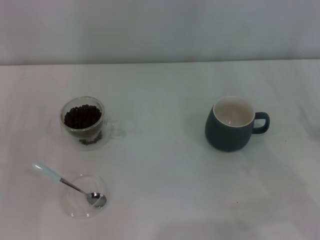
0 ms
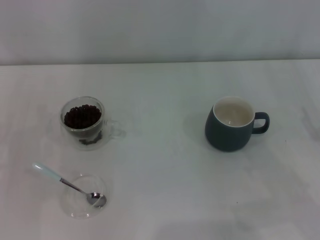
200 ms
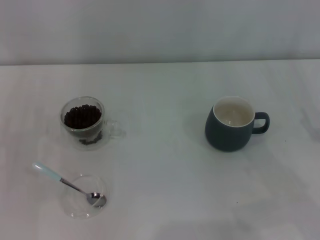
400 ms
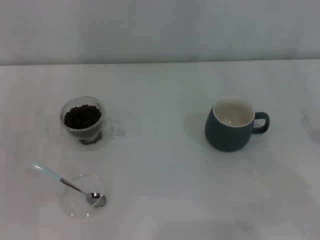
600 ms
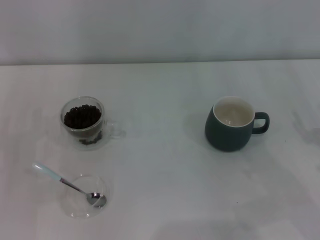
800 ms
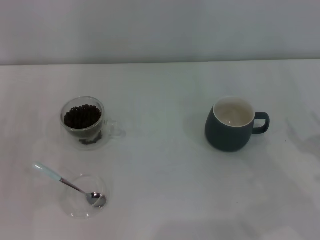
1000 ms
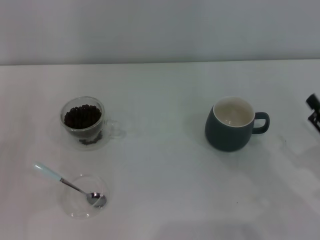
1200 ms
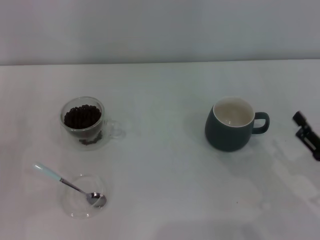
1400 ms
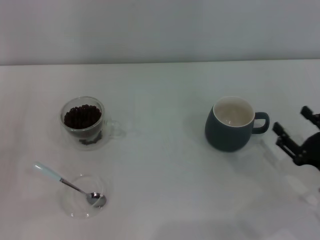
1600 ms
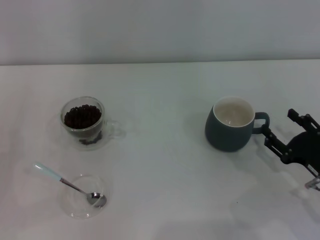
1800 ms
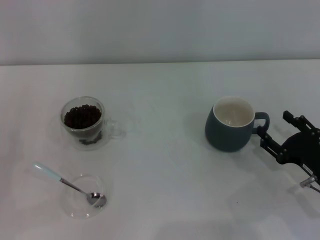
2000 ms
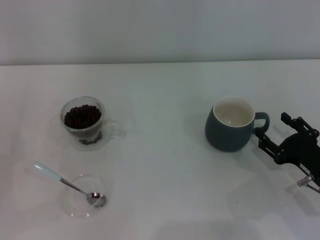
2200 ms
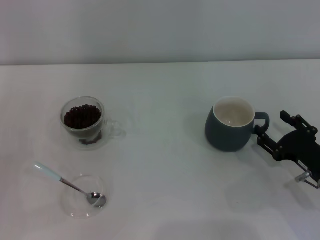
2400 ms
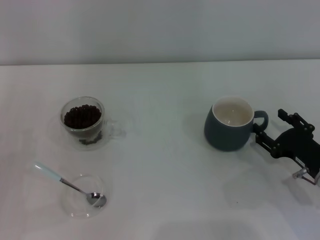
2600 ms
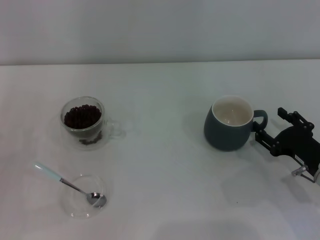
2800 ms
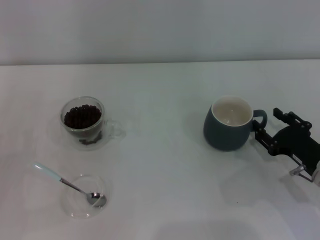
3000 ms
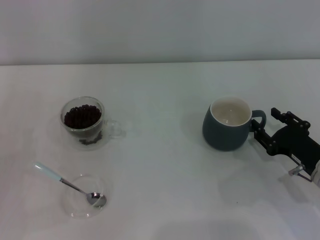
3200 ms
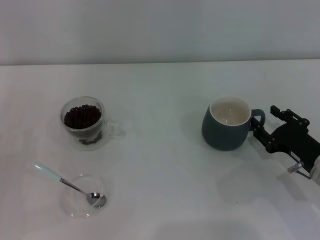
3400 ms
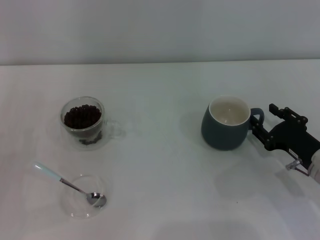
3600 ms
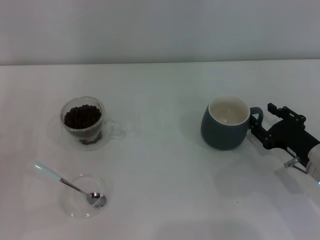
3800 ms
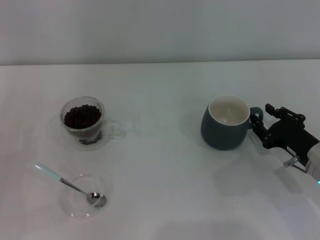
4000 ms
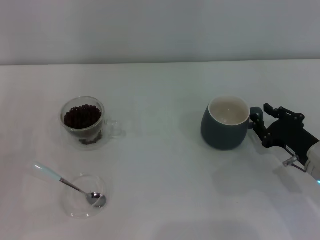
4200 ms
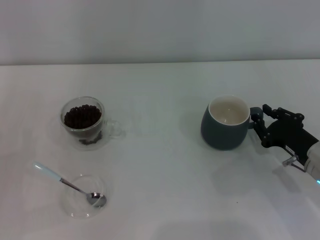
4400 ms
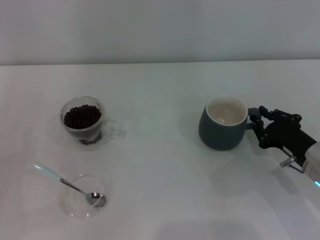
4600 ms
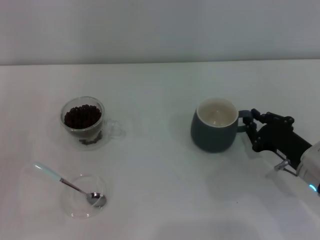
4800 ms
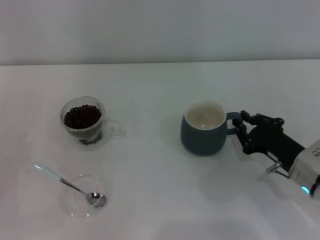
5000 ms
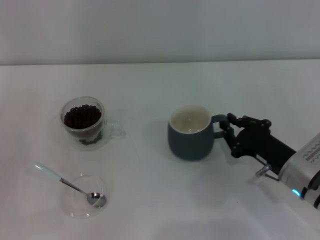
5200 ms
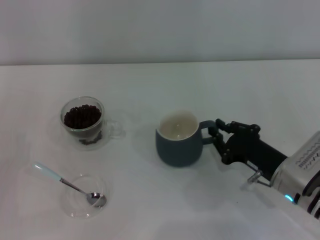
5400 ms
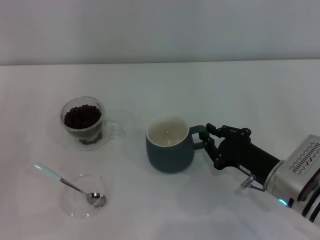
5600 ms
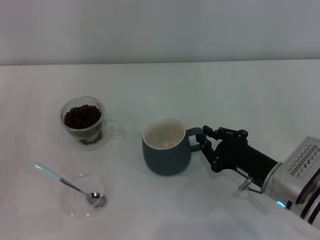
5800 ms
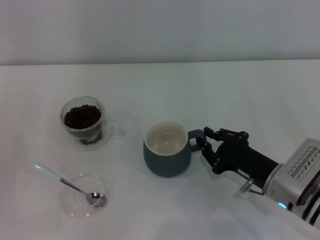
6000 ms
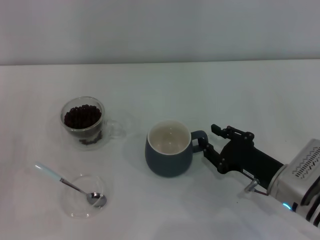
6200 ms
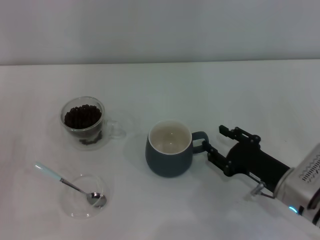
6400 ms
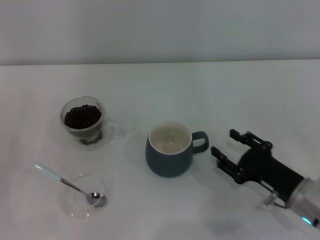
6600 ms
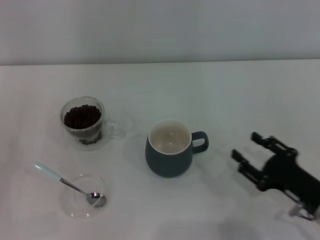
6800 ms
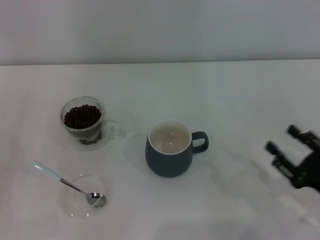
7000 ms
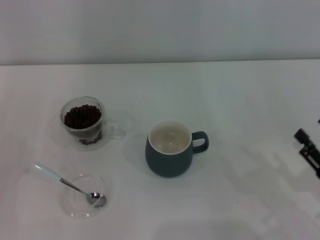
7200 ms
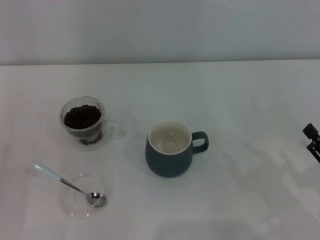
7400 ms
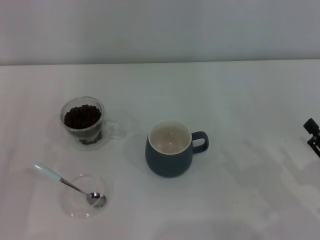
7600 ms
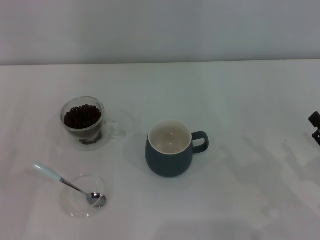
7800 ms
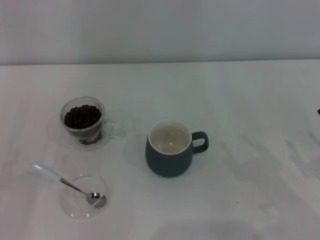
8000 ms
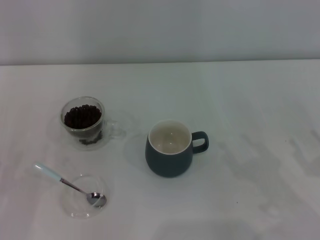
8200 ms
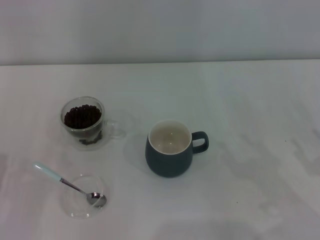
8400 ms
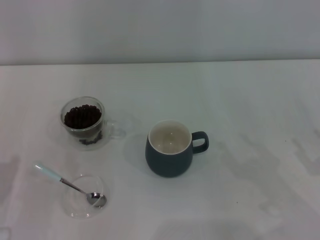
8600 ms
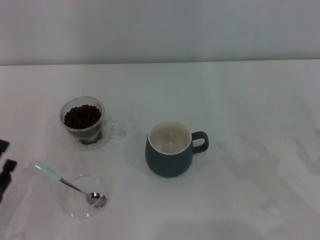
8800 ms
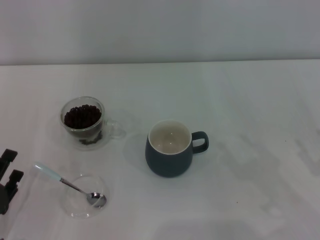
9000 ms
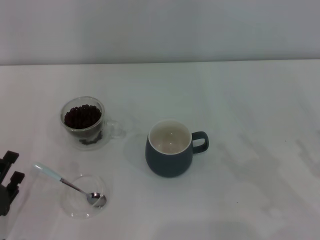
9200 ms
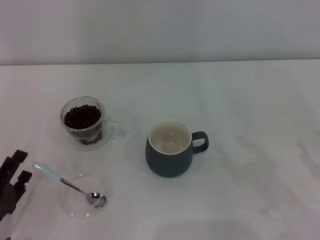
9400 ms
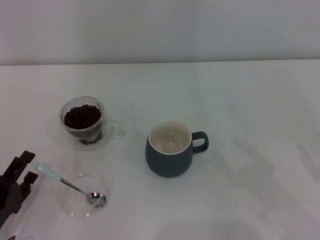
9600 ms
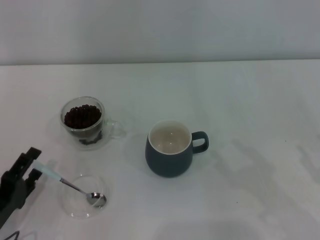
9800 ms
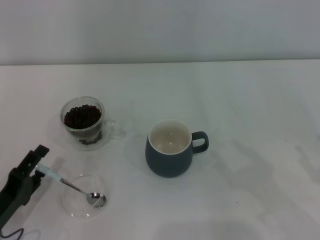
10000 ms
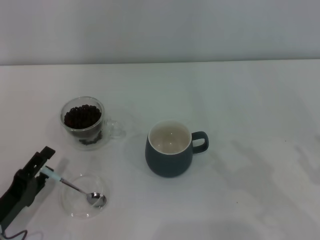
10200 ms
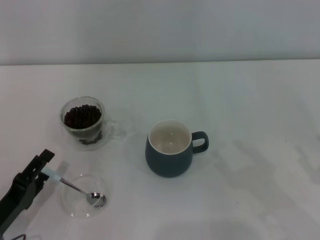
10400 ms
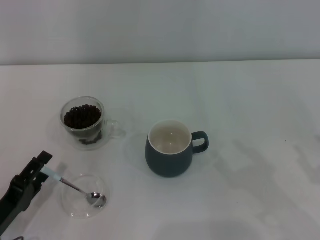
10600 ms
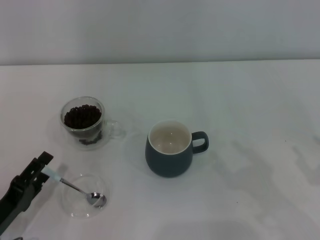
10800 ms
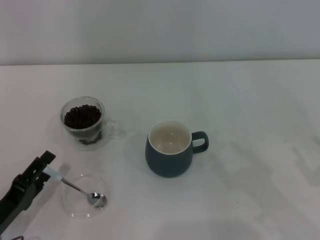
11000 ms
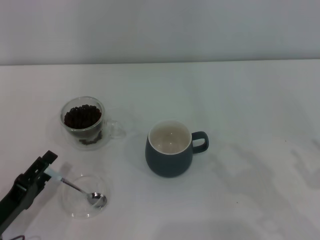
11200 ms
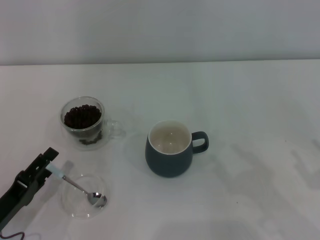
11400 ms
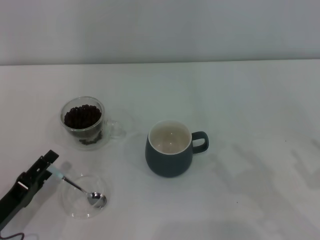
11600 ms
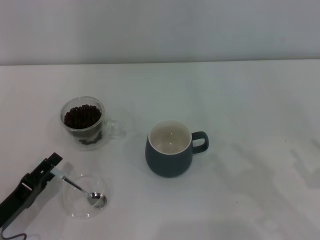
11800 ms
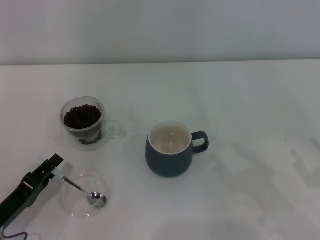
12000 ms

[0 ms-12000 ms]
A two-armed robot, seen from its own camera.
Task of the whole recording: Use a blue spoon to take out the coffee beans from the glass and pour them into the gray cup.
Step, 0 ms to 6400 ms: Move the cup to the center of view with the left gripper.
0 ms to 1600 ms: The right gripper is displaced downward by about 5 cm.
1600 ms to 3000 ms: The right gripper ends up some 5 cm from where it was.
3000 ms to 4400 ms: The right gripper closes its fingers.
4400 ms to 6000 ms: The right gripper moves to the left, about 5 cm.
6000 ms to 7600 ms: The right gripper is displaced to the right and backward by about 15 cm, and opens its fingers.
7600 ms to 9000 ms: The left gripper travels to the right by about 5 cm.
9000 ms to 10400 ms: The grippers move only a little.
10400 ms to 12000 ms: The grippers stay close to where they were, moving slightly.

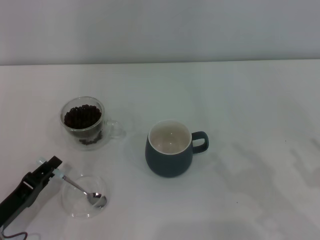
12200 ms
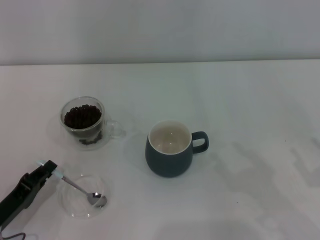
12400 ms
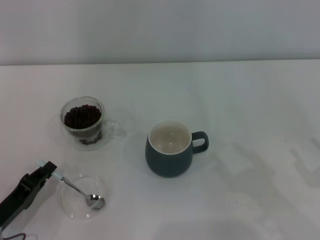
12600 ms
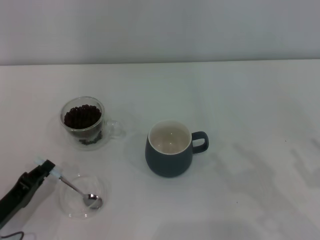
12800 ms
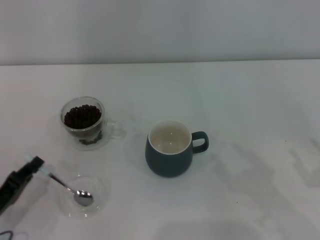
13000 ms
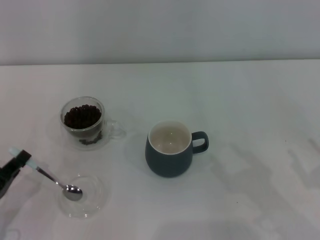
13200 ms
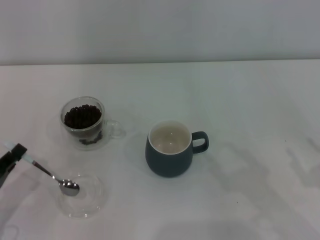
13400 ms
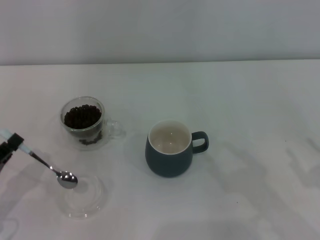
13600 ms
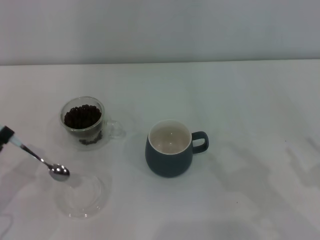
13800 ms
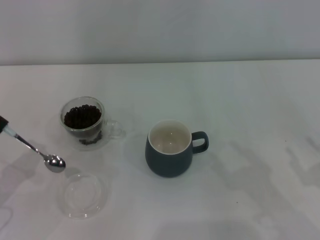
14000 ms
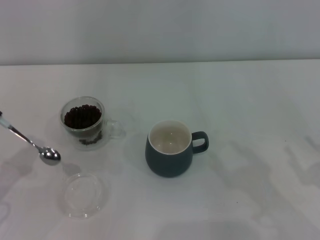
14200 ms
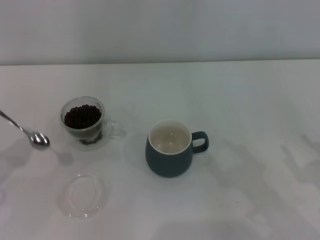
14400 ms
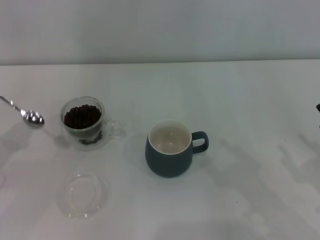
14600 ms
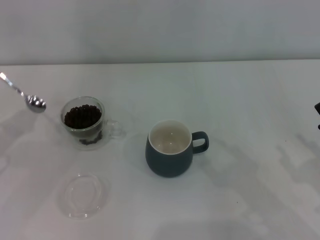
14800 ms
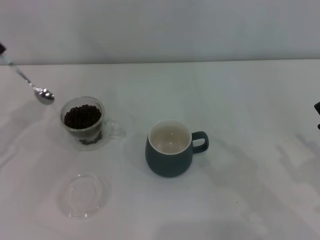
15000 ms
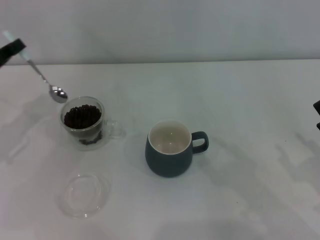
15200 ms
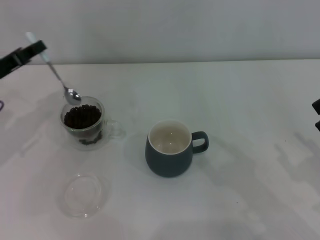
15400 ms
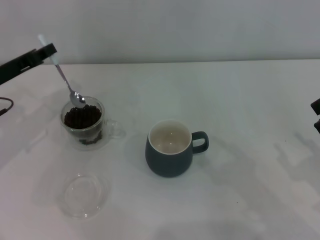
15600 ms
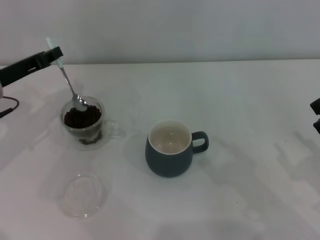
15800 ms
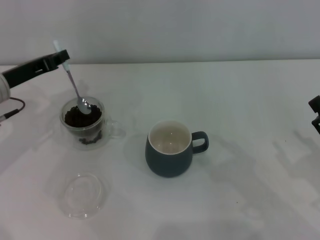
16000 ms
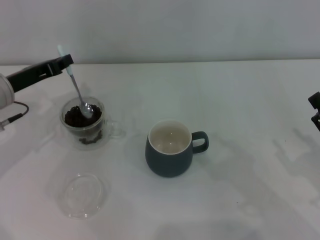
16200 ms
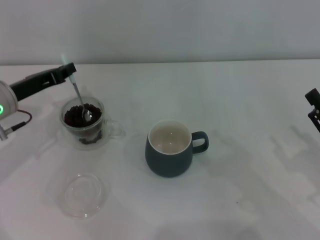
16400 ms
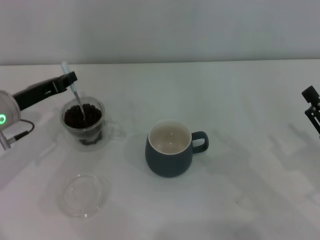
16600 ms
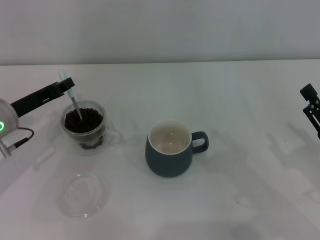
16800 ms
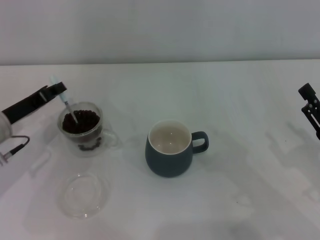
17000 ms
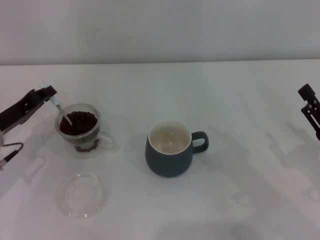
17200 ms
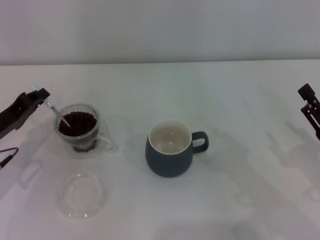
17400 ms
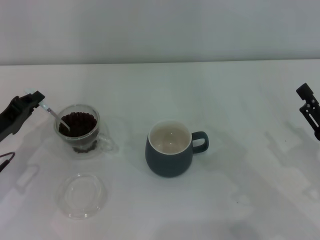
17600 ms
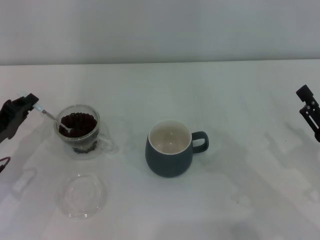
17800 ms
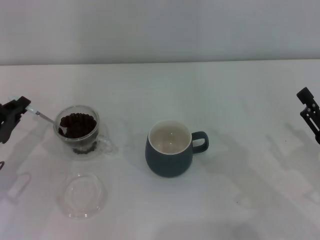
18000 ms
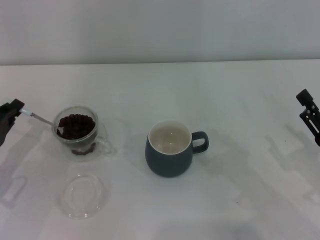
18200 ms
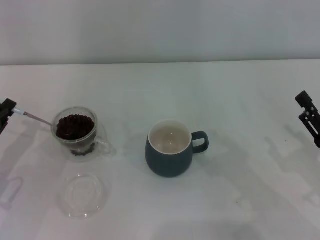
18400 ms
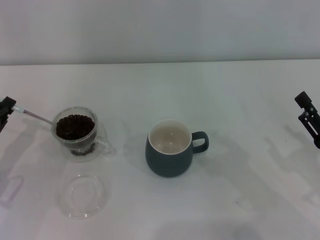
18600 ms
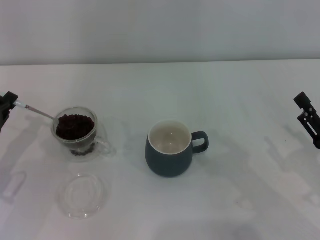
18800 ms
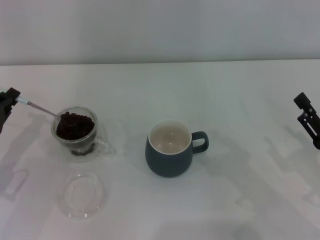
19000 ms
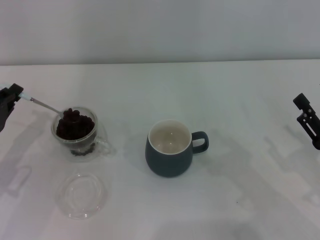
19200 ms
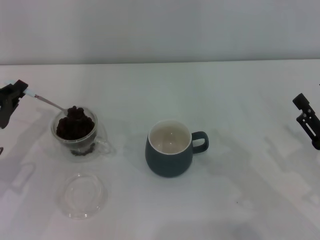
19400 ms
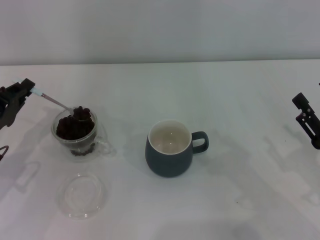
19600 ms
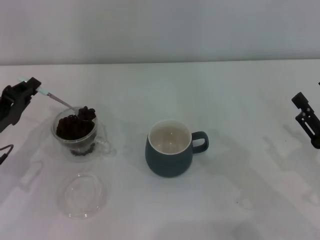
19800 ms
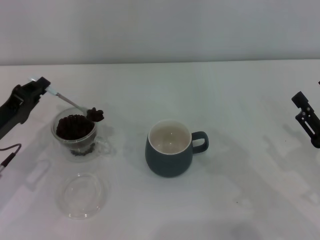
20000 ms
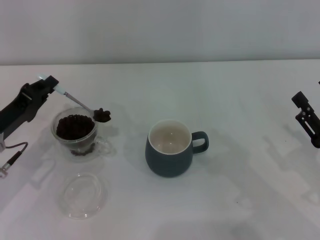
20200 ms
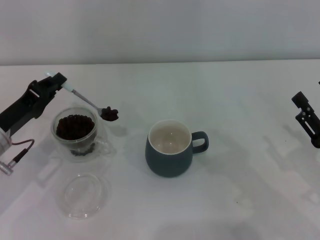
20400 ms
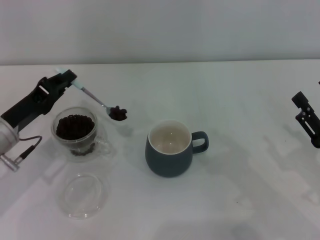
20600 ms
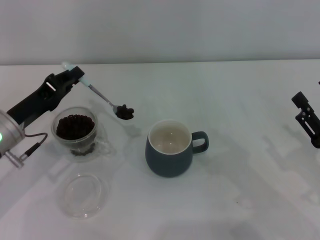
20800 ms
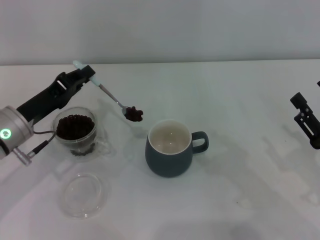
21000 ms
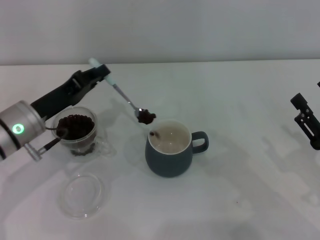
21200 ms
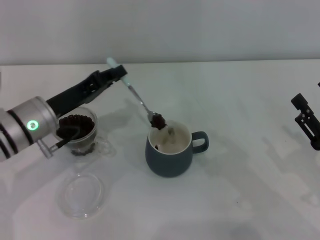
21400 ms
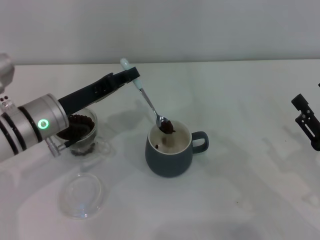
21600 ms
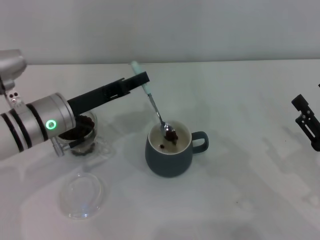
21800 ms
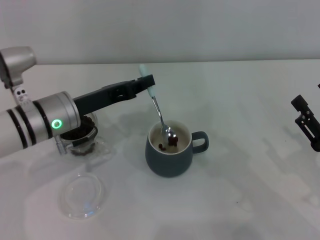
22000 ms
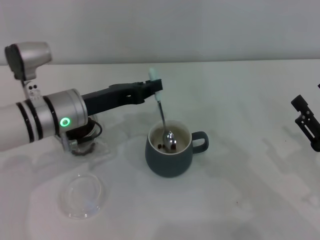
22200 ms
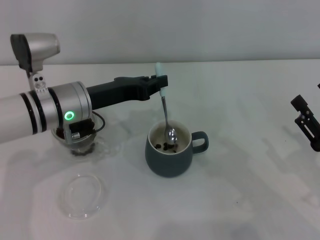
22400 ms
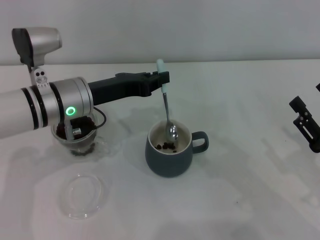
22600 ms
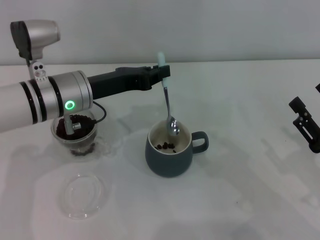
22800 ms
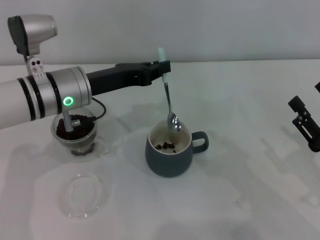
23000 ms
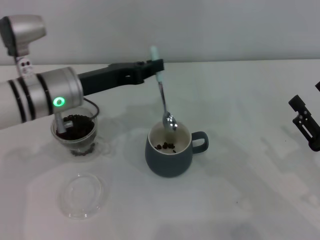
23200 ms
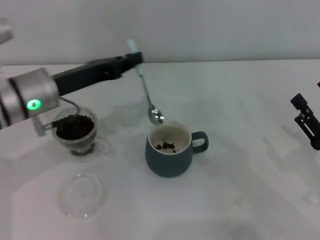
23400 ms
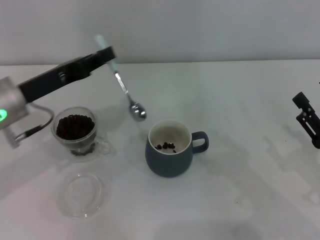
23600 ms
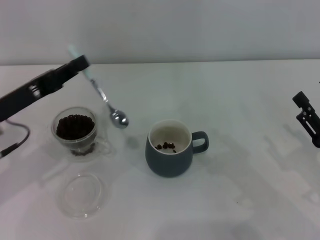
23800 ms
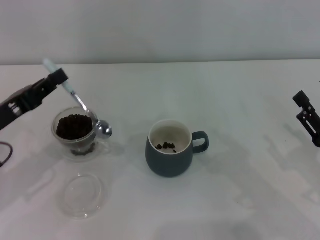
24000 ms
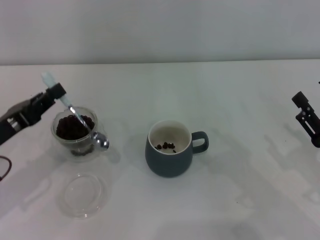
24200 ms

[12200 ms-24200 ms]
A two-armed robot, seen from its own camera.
Task of the whole recording: Use a blue spoon to take out the coffee beans from the glass and pour them into the gray cup.
12200 ms to 13800 ms: The left gripper goes about 5 cm to the left, and closes.
13800 ms to 15200 ms: The left gripper travels forward and upward by some 15 cm.
15200 ms to 16600 ms: The left gripper shifts some 5 cm to the right.
16600 ms to 18200 ms: The left gripper travels backward and to the left by roughly 10 cm.
18200 ms to 19800 ms: There are only small adjustments of the grippers.
19800 ms to 21200 ms: The left gripper is displaced to the right by approximately 5 cm.
21200 ms to 22600 ms: The left gripper goes roughly 5 cm to the right.
22600 ms to 24200 ms: The left gripper is displaced to the left and backward by some 15 cm.
